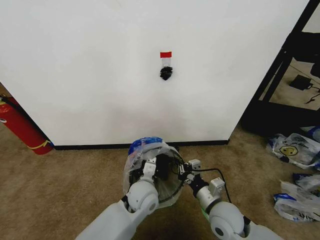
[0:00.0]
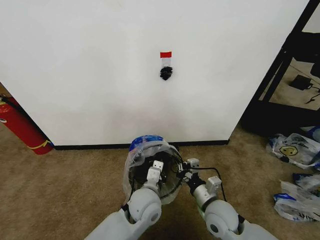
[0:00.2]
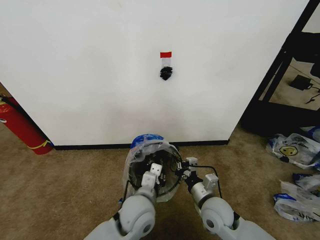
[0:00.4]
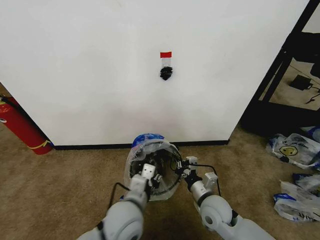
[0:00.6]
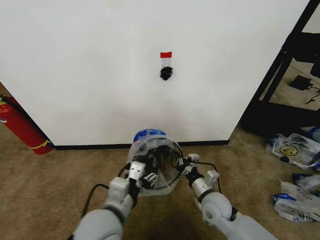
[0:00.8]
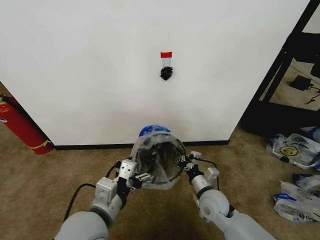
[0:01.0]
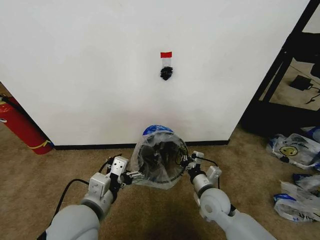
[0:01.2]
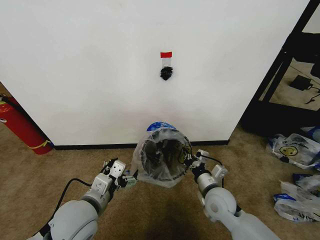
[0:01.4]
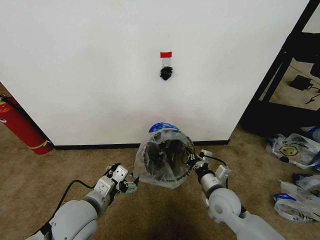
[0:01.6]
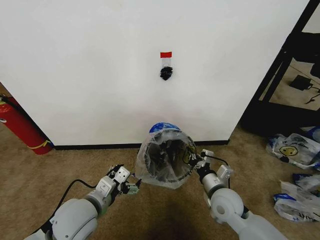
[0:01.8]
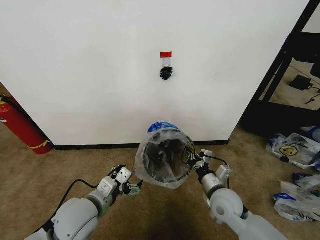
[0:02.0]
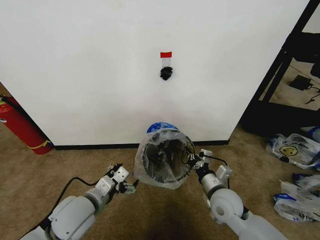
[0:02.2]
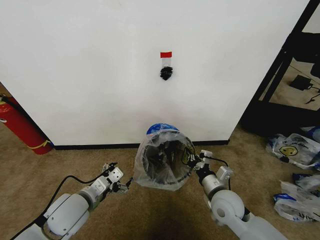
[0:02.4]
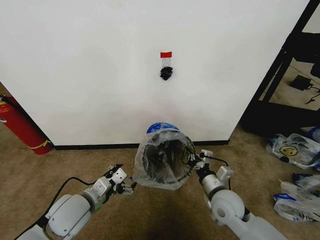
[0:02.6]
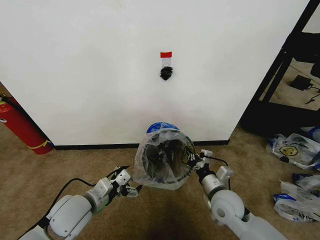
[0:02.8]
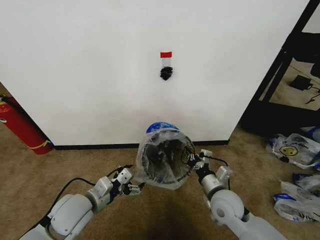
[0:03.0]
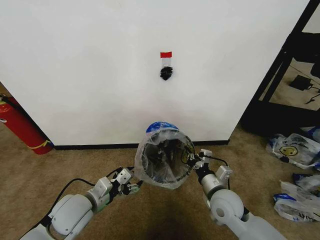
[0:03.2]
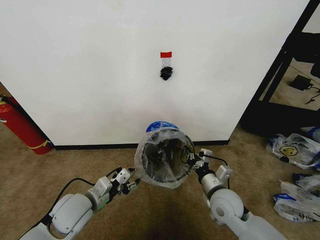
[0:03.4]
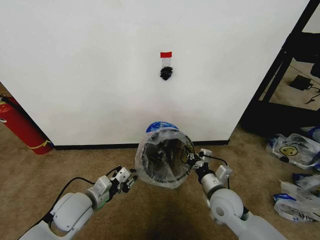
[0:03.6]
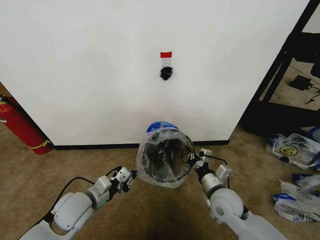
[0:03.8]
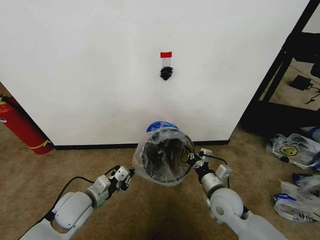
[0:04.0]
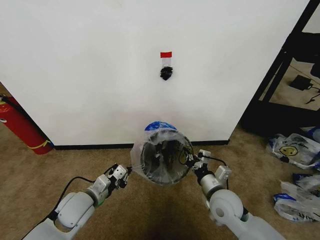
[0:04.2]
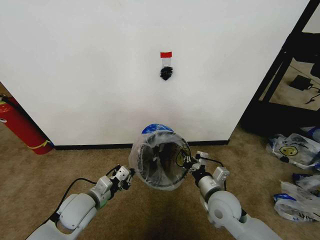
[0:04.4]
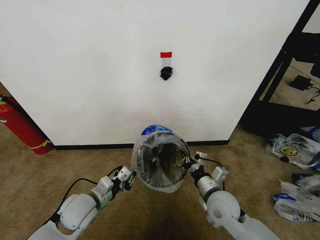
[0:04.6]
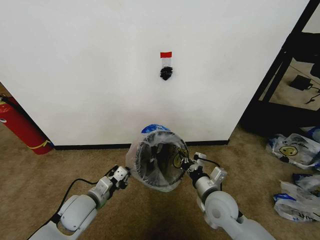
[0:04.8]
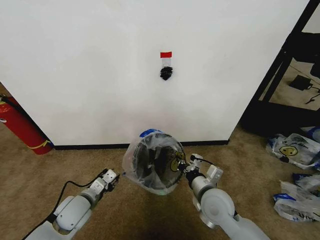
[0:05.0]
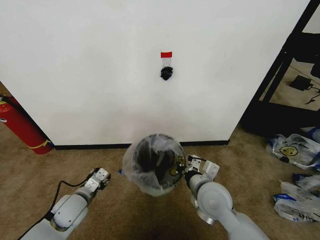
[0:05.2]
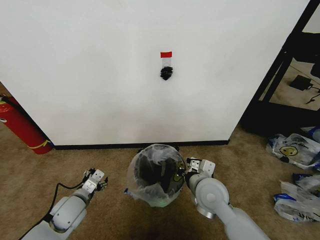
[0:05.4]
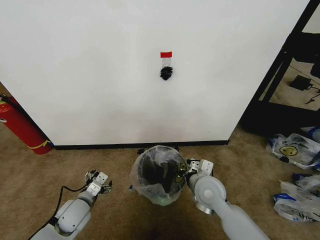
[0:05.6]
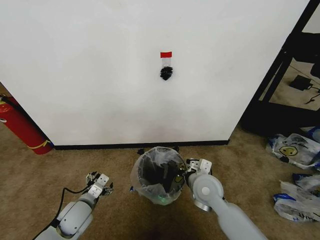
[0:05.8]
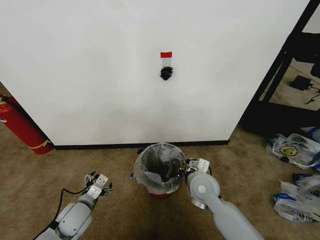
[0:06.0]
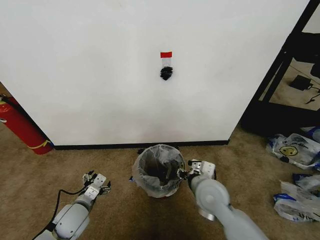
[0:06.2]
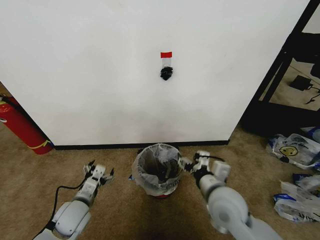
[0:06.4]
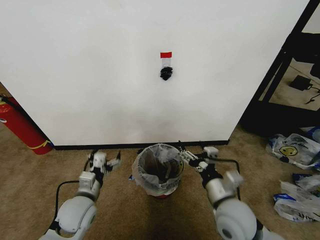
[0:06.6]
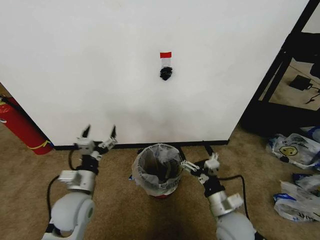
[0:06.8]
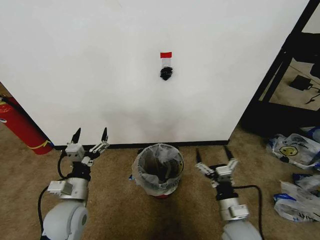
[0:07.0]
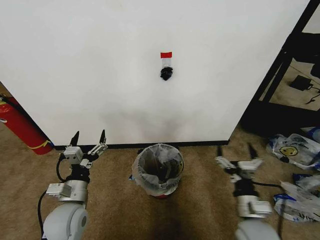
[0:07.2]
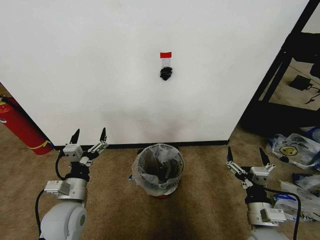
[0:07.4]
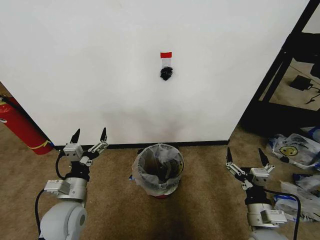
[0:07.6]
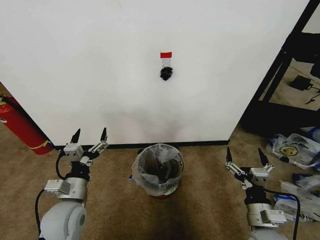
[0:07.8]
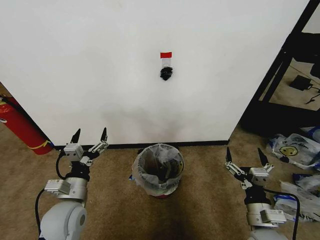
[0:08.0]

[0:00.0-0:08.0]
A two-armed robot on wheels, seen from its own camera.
Task of the whole recording: Pick up the garbage bag from the wall and place it over the trash bin.
0:00.0 to 0:01.6: The left gripper travels to the left, backward and upward by approximately 20 cm, and opens up.
0:01.6 to 0:03.2: The left gripper ends up roughly 5 cm from where it was.
0:03.2 to 0:04.8: The left gripper changes place by roughly 5 cm, and closes up.
0:04.8 to 0:06.4: The right gripper goes up and down, approximately 5 cm each way, reversing 2 times, and opens. The left gripper changes place by approximately 5 cm, and opens its fingers.
0:06.4 to 0:08.0: The left gripper travels upward by roughly 10 cm. Meanwhile the right gripper goes approximately 15 cm to the right, backward and downward.
